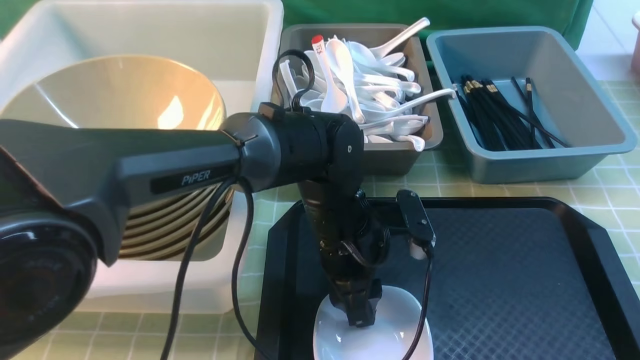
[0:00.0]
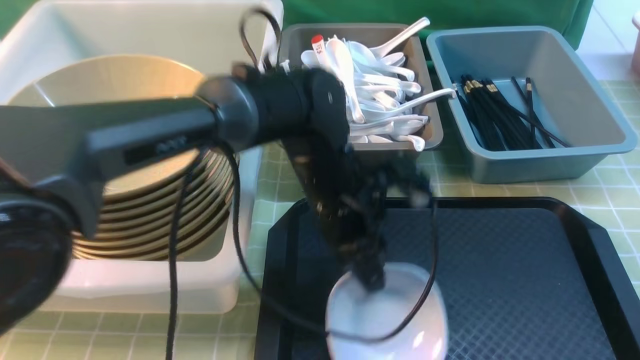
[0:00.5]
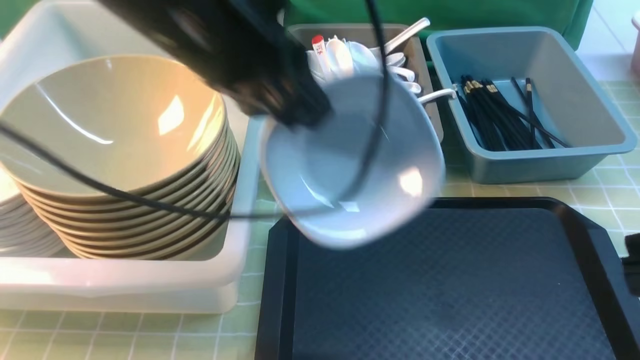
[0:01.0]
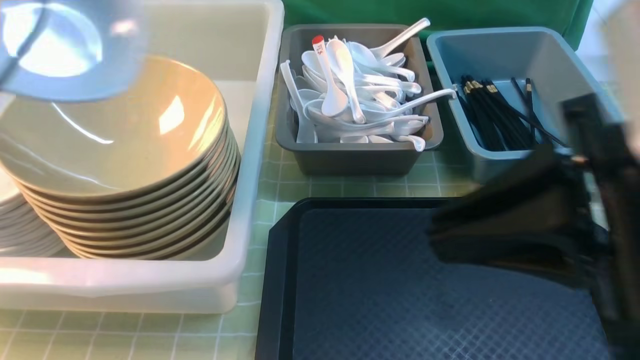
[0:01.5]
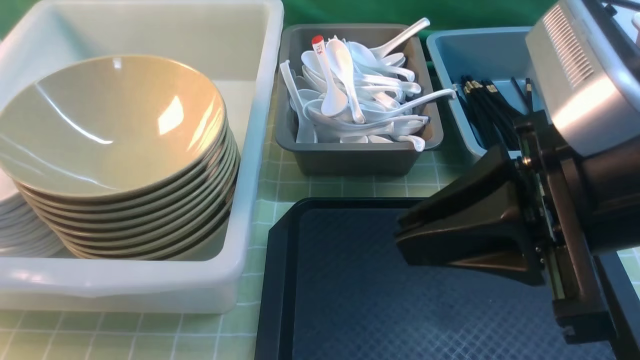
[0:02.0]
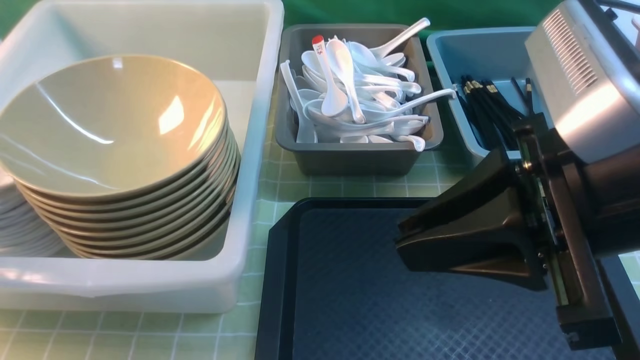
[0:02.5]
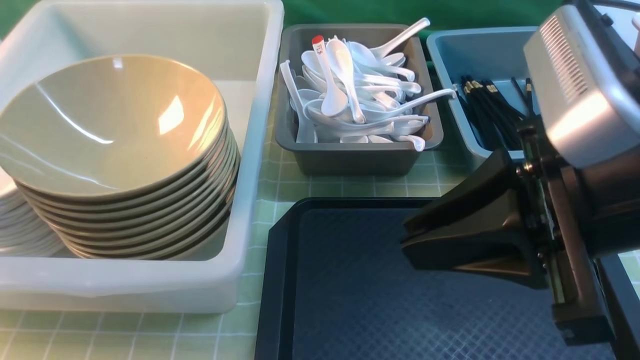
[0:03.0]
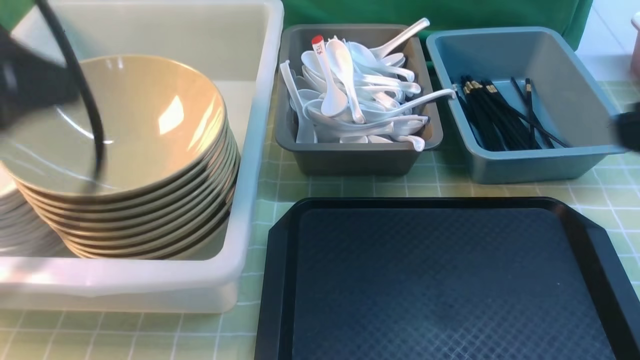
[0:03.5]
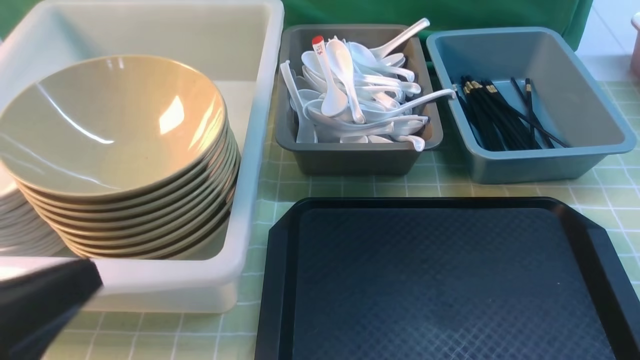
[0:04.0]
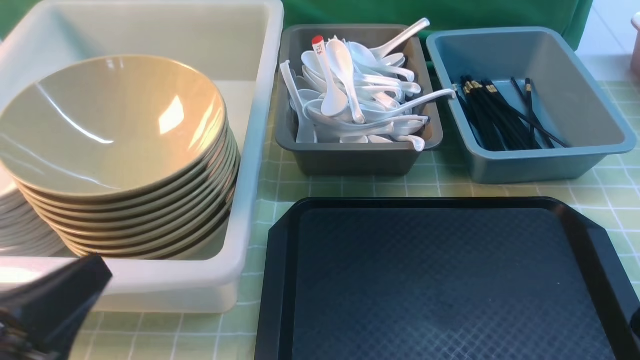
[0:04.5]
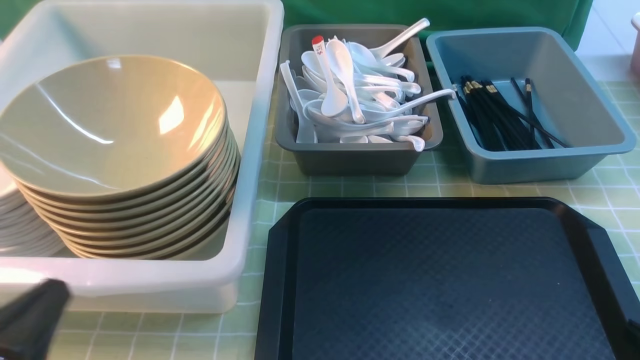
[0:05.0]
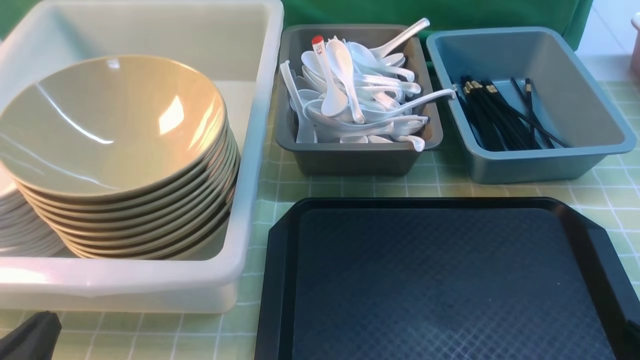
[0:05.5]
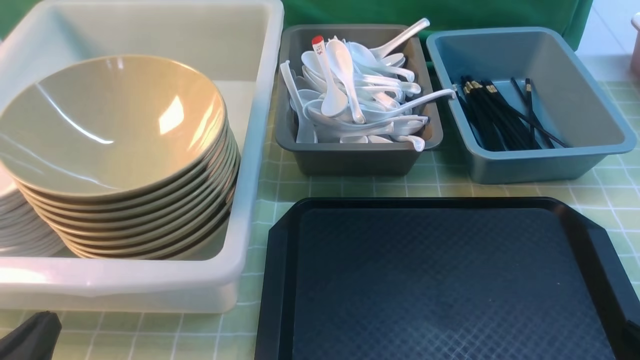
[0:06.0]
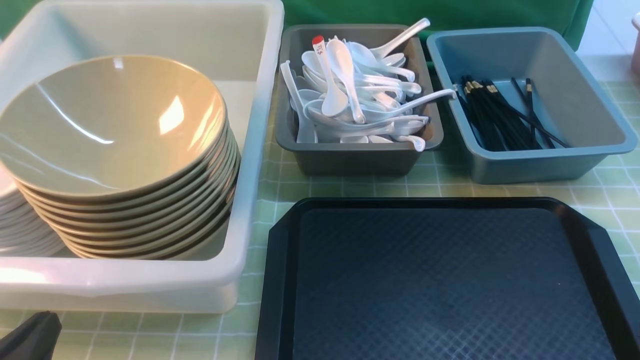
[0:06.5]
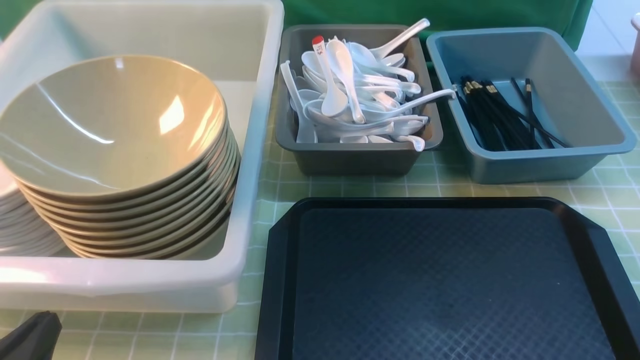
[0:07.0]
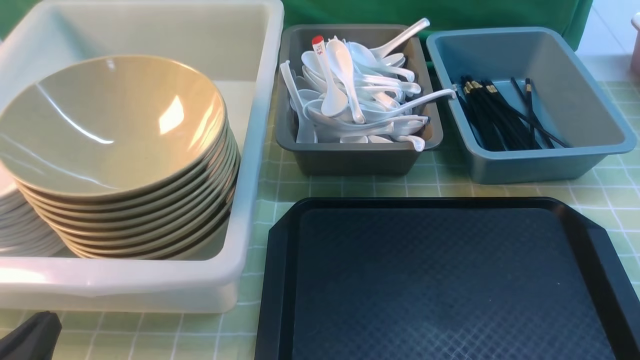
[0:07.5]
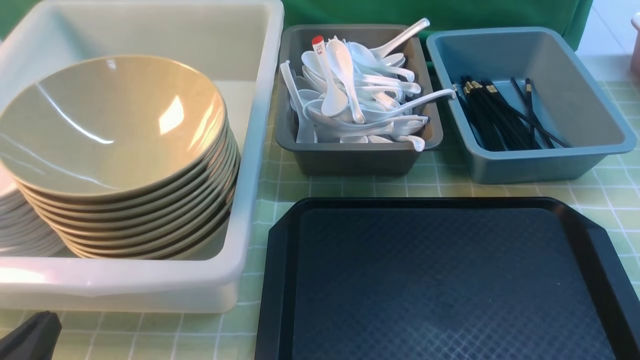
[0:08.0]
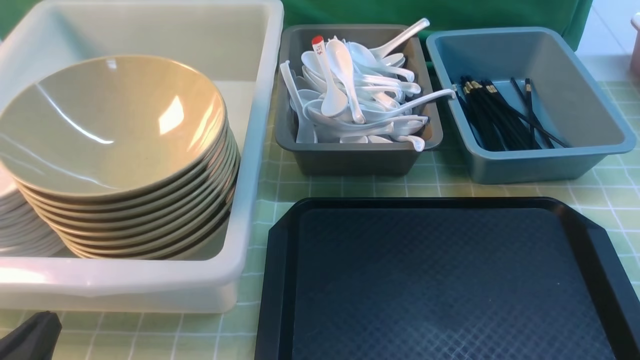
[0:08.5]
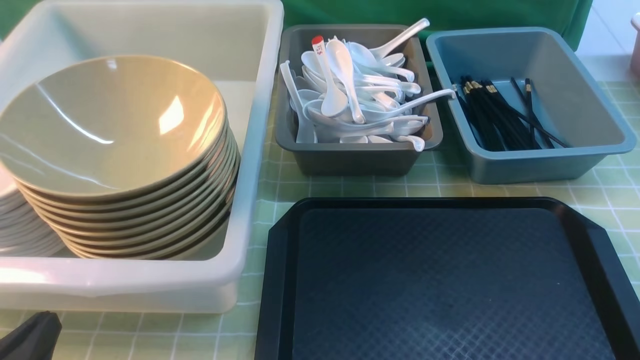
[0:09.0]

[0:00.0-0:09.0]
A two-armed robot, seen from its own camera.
Task of the whole recording: on green table put chopsticks spoon bowls plates into blue grey white boxes.
Step, 0:00.5 to 0:03.0: use the left arm to put the plate into the large storage box on the left.
0:00.0 to 0:02.0: The left gripper is displaced to the left and upward by about 50 cm; the right gripper travels forward and to the left by roughly 15 cm.
0:02.0 to 0:04.5: The left gripper moves to the right, backward and downward, about 25 cm, and opens, then closes again; the right gripper shifts approximately 25 cm downward, to the right and backward.
0:04.5 to 0:07.0: The left gripper moves downward, about 10 cm.
0:07.0 to 0:09.0: The two grippers keep their place.
